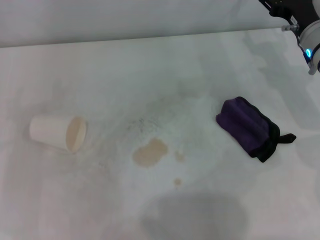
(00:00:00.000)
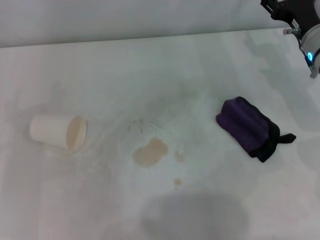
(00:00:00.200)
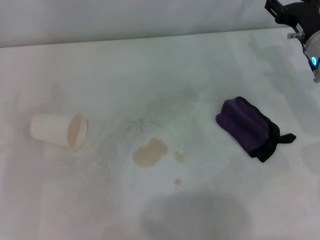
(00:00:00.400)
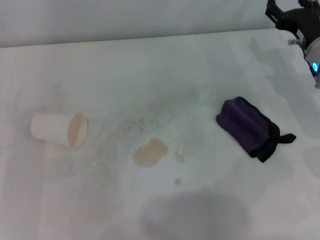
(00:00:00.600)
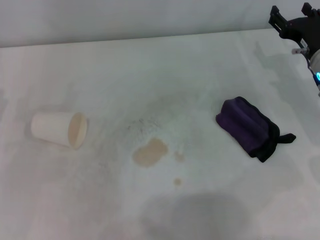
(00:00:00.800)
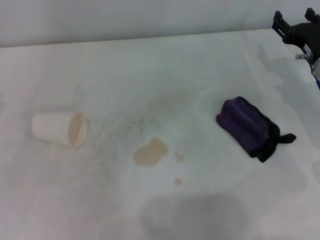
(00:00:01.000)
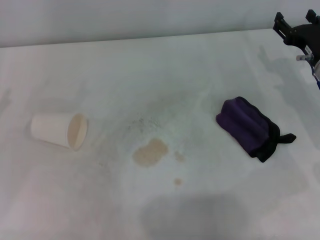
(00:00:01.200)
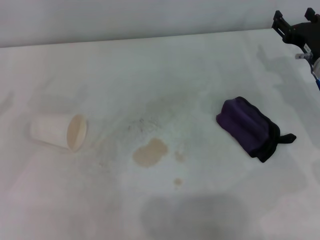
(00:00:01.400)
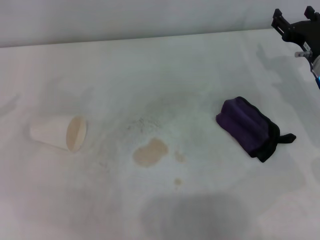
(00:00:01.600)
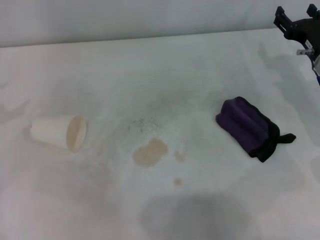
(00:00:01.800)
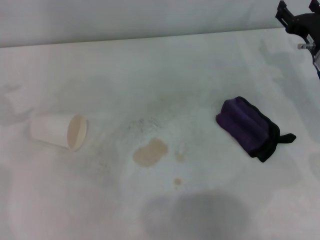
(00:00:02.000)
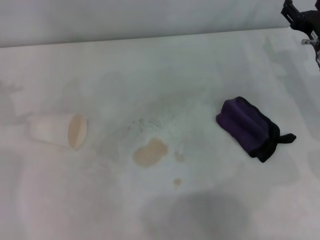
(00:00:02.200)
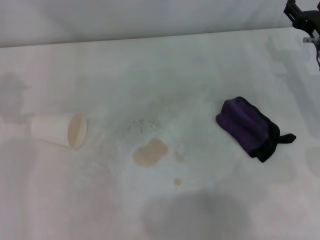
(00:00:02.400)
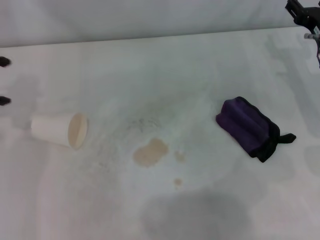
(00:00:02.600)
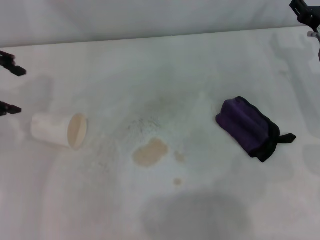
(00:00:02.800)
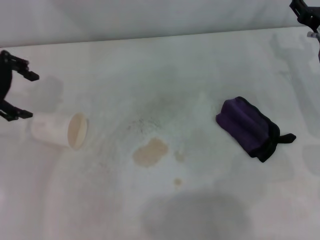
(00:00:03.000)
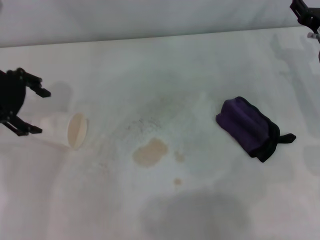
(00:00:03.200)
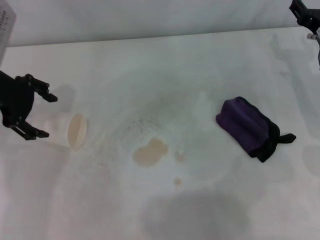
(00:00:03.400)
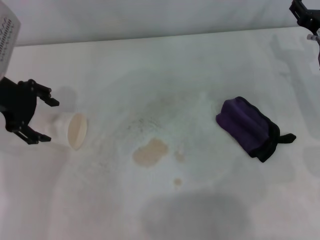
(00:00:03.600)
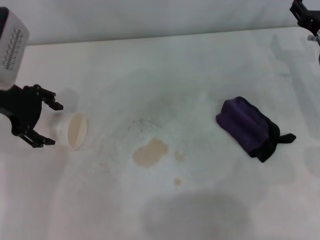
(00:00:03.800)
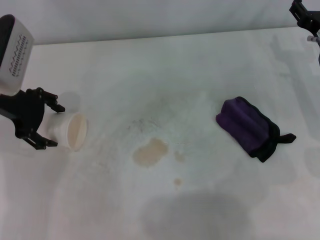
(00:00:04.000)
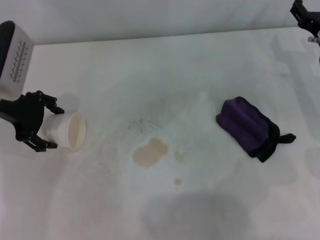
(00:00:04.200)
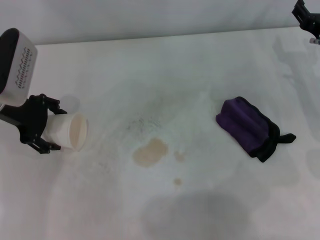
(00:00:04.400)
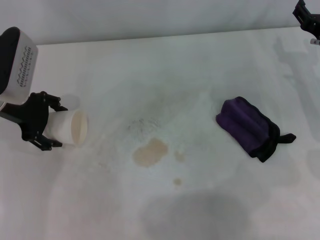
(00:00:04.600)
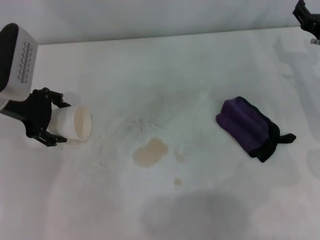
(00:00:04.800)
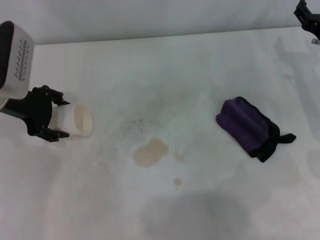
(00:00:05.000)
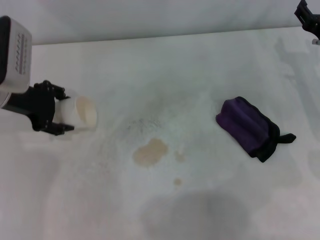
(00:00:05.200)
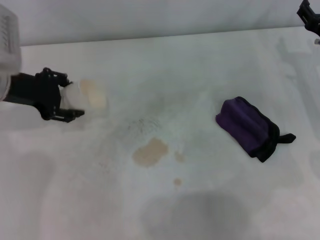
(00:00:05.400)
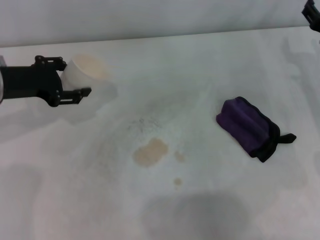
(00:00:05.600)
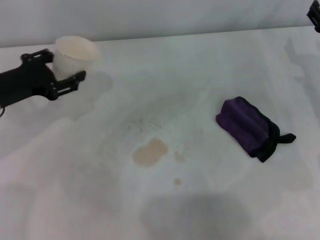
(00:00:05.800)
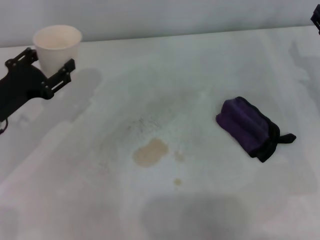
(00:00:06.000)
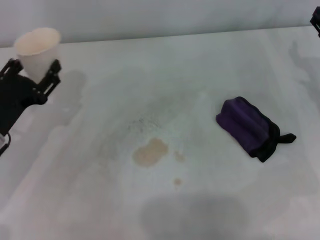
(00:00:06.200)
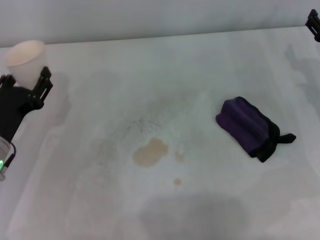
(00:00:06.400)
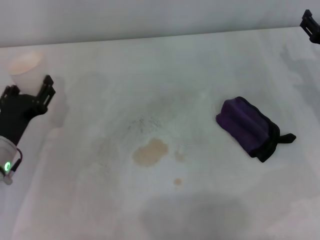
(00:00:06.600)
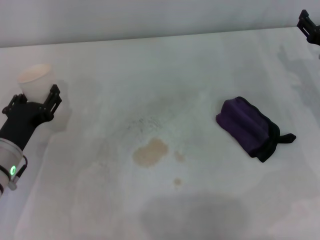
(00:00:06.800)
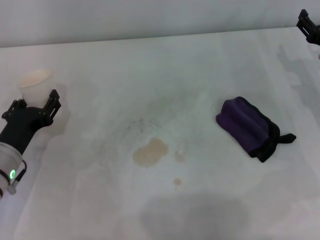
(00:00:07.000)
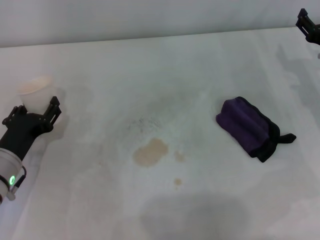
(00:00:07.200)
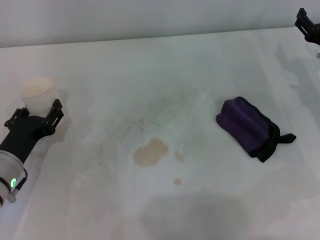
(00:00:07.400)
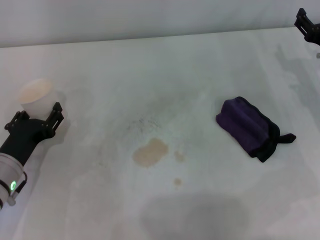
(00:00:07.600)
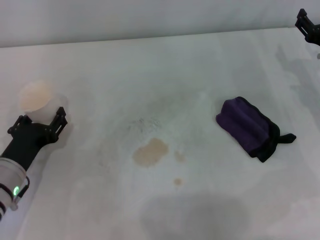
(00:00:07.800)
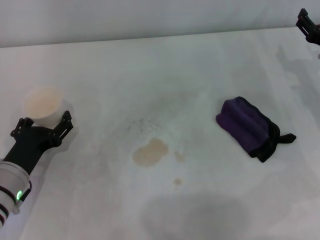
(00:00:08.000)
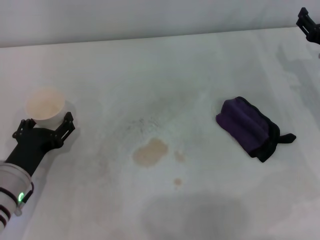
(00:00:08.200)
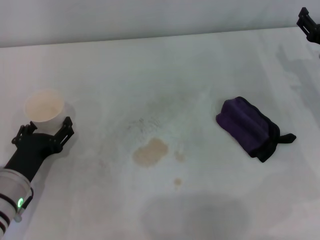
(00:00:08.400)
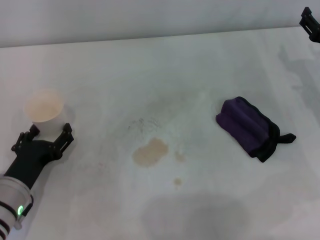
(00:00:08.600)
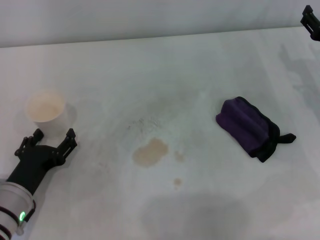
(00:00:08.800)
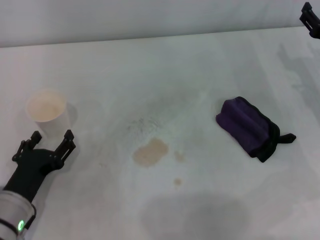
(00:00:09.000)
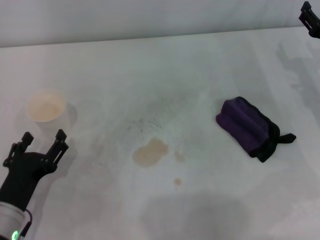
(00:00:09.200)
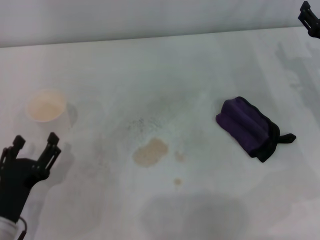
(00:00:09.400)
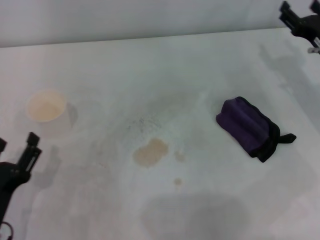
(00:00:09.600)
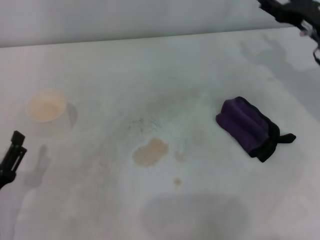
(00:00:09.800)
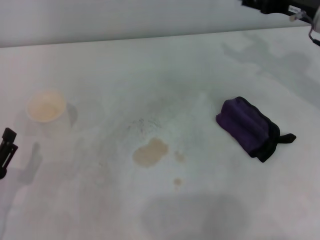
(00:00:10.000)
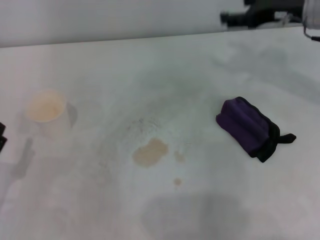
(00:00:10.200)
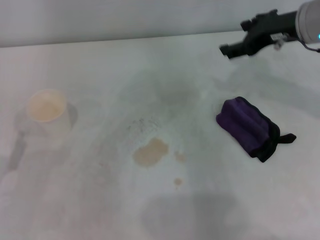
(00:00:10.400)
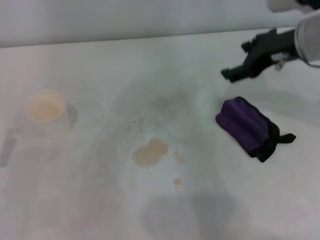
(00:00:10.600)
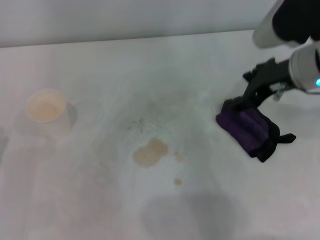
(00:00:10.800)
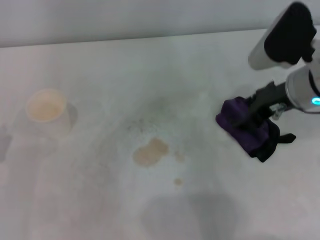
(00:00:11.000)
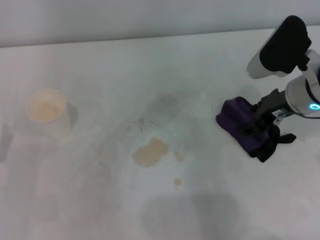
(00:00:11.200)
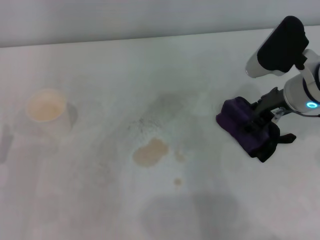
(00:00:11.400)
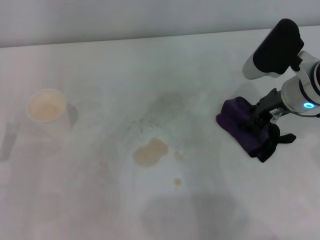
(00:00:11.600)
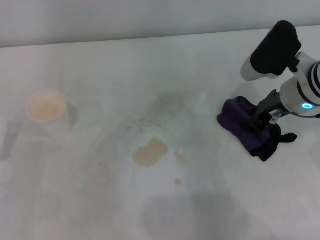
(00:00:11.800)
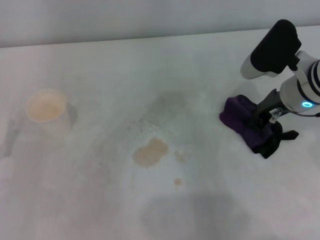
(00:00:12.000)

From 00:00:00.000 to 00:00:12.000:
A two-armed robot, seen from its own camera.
Step, from 00:00:00.000 to 00:00:04.400: Grasp the paper cup with the left gripper.
Step, from 00:00:04.600 to 00:00:08.400: Stand the paper cup upright with the left gripper.
Step, from 00:00:08.600 to 00:00:11.800: Grasp the rag with the right gripper.
From 00:00:01.600 to 00:00:03.000: The left gripper travels to the right, forward and upward by approximately 15 cm.
From 00:00:03.000 to 00:00:04.400: The left gripper shifts approximately 10 cm downward.
From 00:00:04.400 to 00:00:06.000: The left gripper heads backward and downward, covering roughly 10 cm, and closes its fingers.
From 00:00:06.000 to 00:00:07.600: The left gripper is displaced downward by some 5 cm.
From 00:00:07.600 to 00:00:09.000: The left gripper is displaced backward by roughly 5 cm, and opens up.
From 00:00:09.000 to 00:00:10.400: The right gripper shifts about 15 cm upward and to the left. Meanwhile the left gripper is displaced to the left by roughly 5 cm.
From 00:00:10.400 to 00:00:12.000: The right gripper heads downward, covering about 10 cm, and closes up.

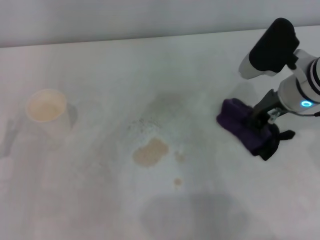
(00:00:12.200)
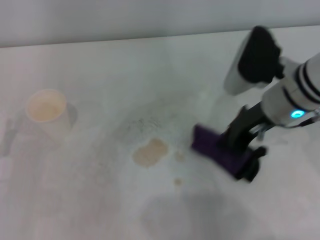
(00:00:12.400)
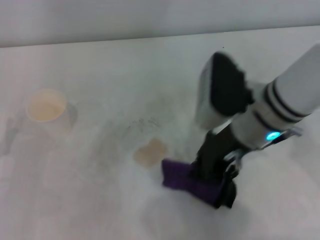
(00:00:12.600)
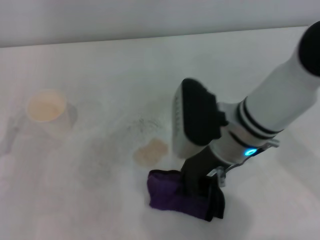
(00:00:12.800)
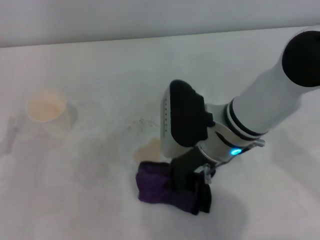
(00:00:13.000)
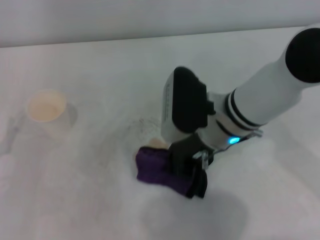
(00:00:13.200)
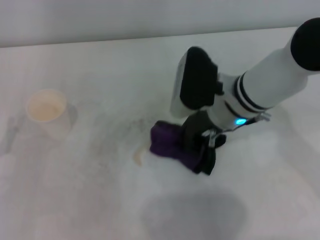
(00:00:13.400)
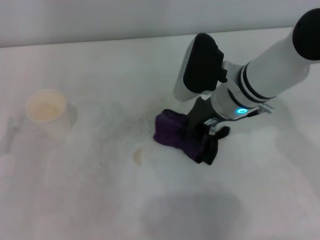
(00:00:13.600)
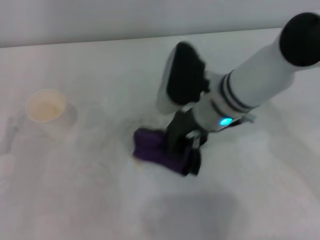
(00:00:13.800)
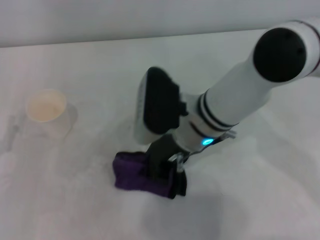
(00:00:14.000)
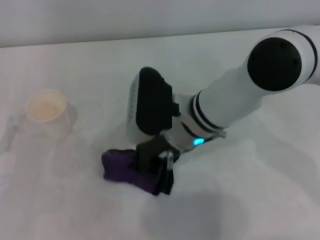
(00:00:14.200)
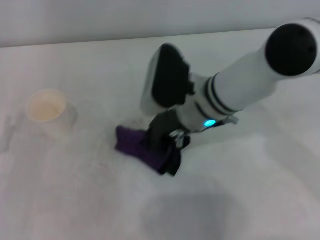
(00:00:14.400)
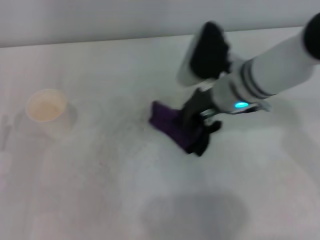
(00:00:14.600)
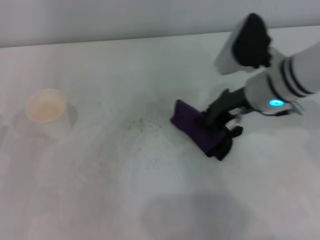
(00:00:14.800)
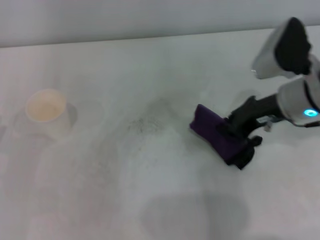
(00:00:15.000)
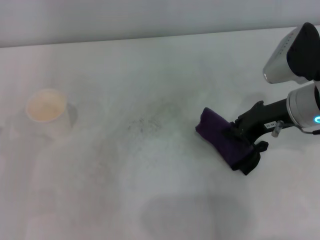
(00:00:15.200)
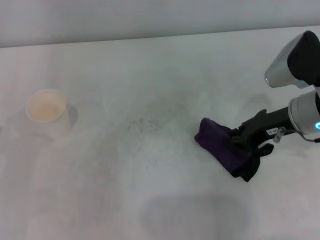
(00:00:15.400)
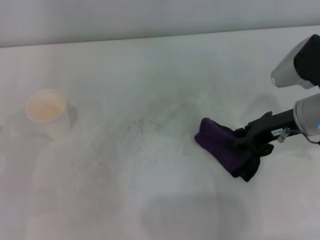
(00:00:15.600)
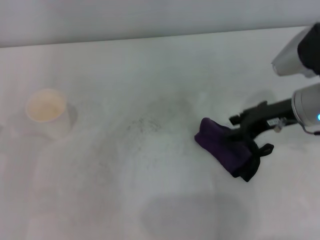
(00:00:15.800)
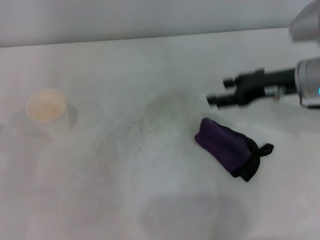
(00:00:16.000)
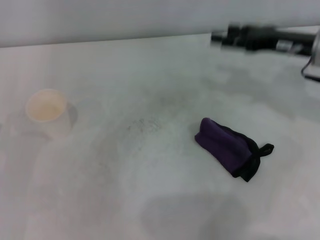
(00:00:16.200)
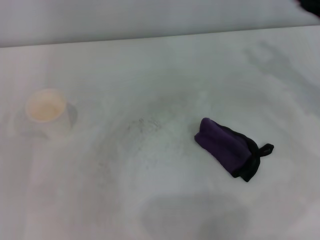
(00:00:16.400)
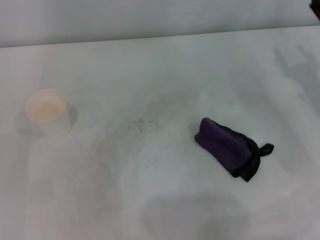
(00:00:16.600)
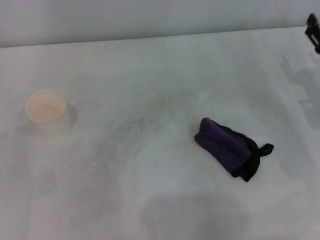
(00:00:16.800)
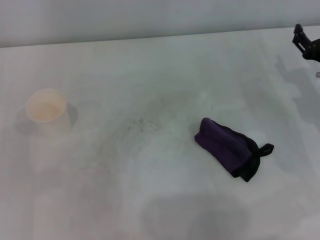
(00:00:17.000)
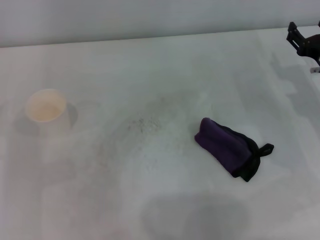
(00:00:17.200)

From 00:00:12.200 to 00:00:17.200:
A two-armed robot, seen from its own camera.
Step, from 00:00:12.200 to 00:00:14.400: Wipe the stains off the table with the right gripper.
Step, from 00:00:14.800 to 00:00:15.600: Place the rag on the table with the right gripper.
From 00:00:12.200 to 00:00:13.800: The right gripper heads to the left, covering roughly 10 cm.
From 00:00:13.800 to 00:00:15.600: The right gripper heads to the right, covering roughly 15 cm.
From 00:00:15.600 to 00:00:17.200: The right gripper goes some 10 cm to the right and downward, and opens its fingers.
